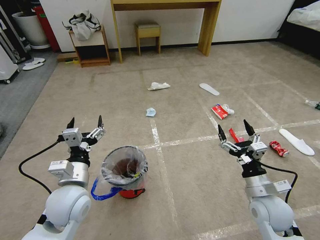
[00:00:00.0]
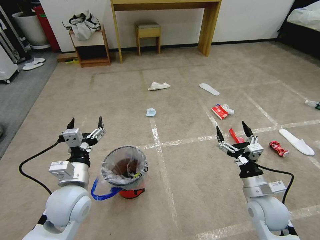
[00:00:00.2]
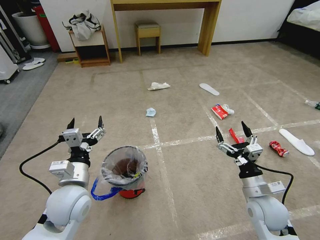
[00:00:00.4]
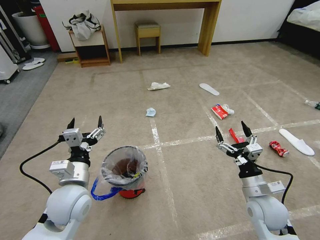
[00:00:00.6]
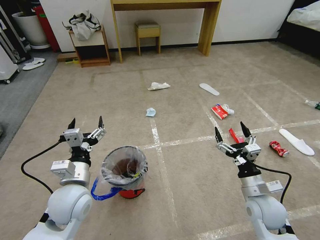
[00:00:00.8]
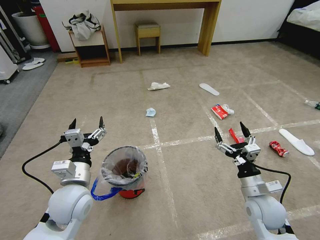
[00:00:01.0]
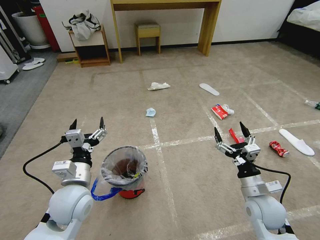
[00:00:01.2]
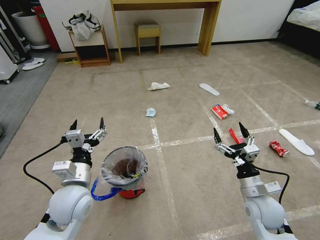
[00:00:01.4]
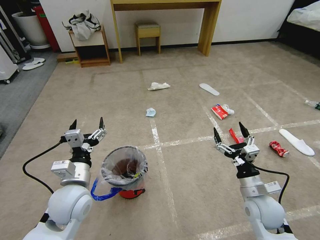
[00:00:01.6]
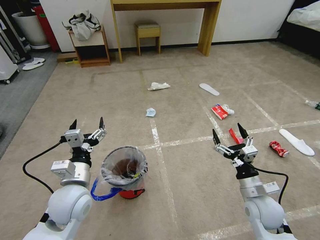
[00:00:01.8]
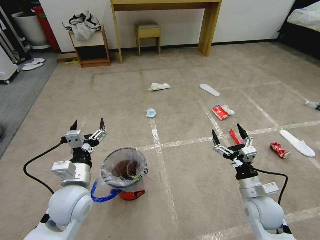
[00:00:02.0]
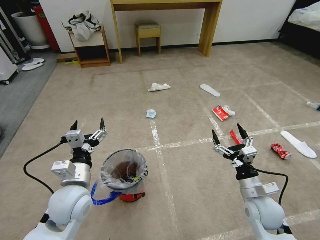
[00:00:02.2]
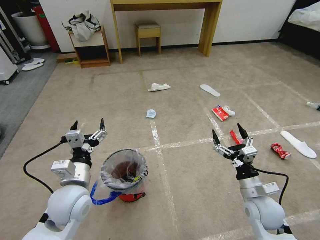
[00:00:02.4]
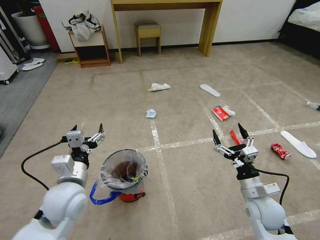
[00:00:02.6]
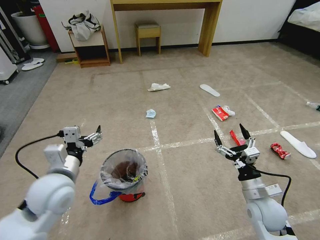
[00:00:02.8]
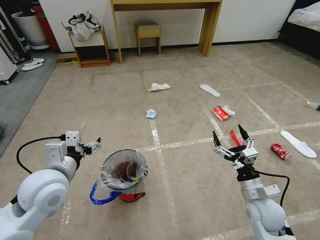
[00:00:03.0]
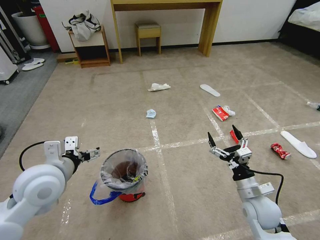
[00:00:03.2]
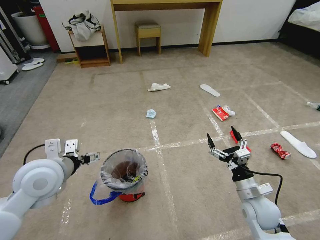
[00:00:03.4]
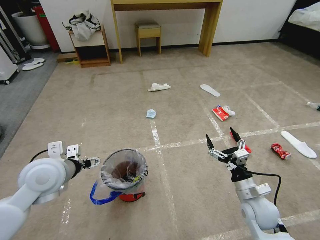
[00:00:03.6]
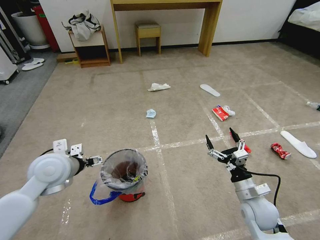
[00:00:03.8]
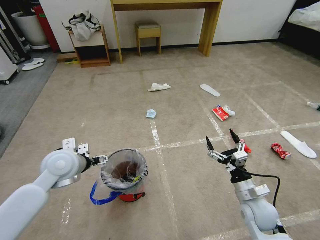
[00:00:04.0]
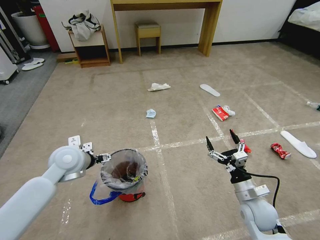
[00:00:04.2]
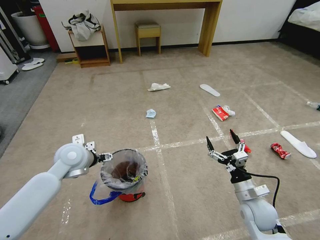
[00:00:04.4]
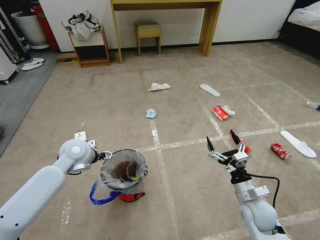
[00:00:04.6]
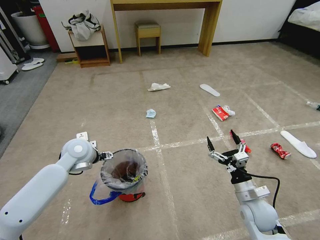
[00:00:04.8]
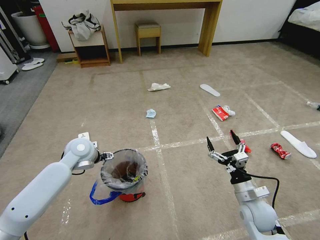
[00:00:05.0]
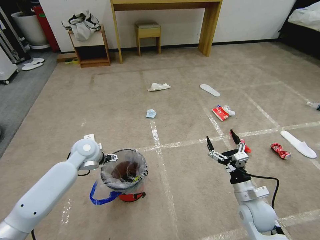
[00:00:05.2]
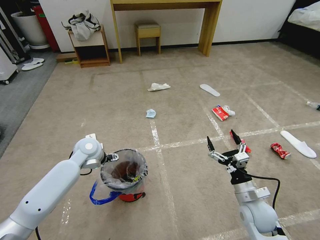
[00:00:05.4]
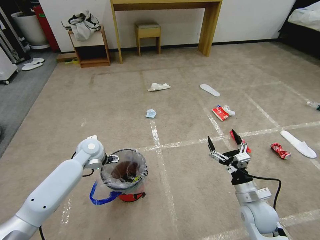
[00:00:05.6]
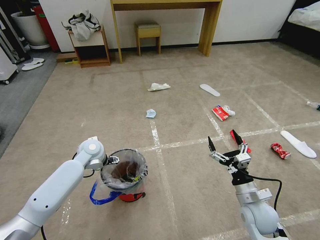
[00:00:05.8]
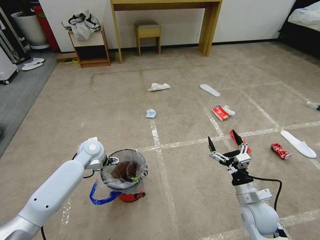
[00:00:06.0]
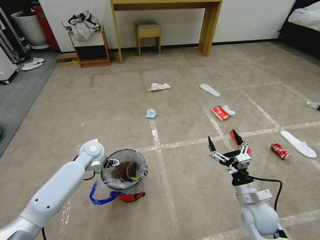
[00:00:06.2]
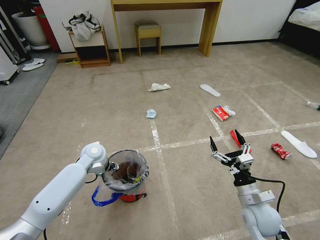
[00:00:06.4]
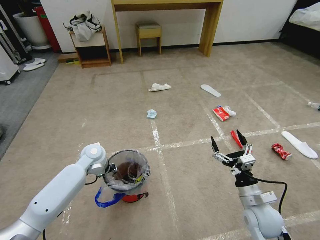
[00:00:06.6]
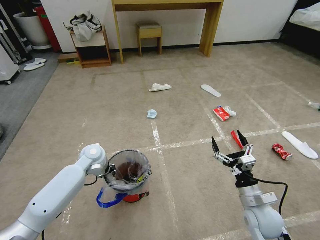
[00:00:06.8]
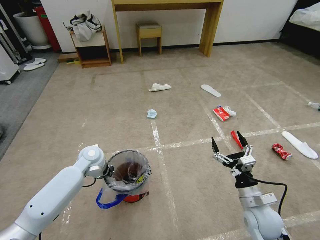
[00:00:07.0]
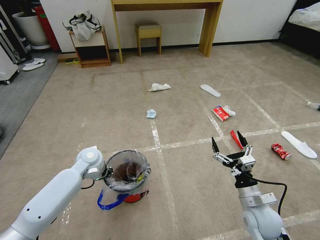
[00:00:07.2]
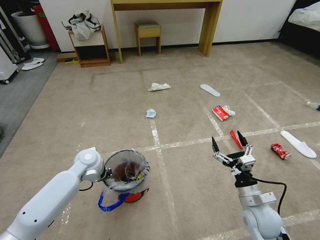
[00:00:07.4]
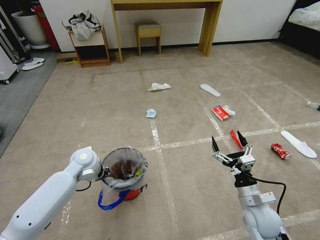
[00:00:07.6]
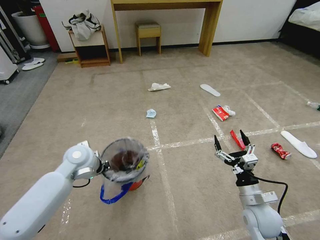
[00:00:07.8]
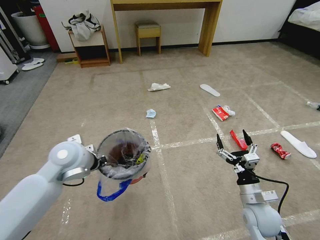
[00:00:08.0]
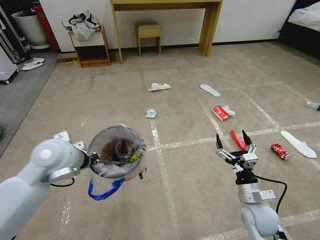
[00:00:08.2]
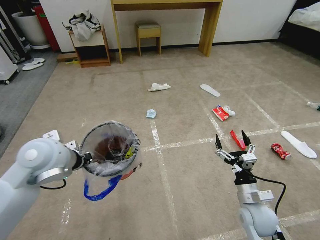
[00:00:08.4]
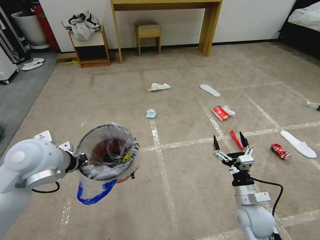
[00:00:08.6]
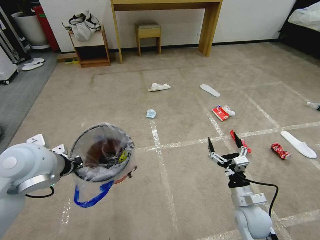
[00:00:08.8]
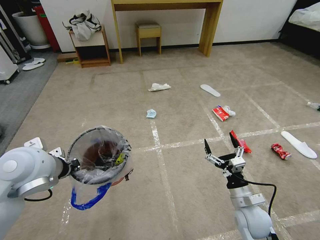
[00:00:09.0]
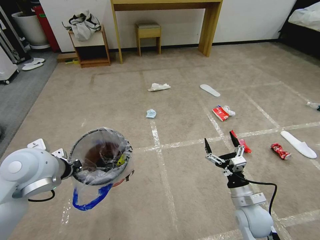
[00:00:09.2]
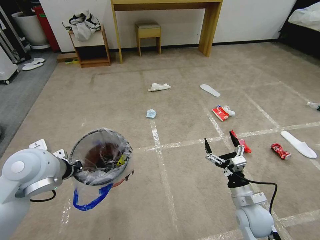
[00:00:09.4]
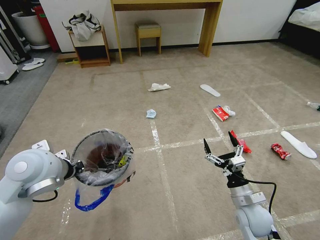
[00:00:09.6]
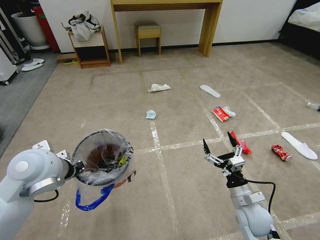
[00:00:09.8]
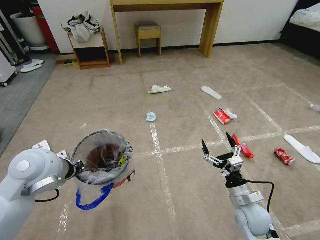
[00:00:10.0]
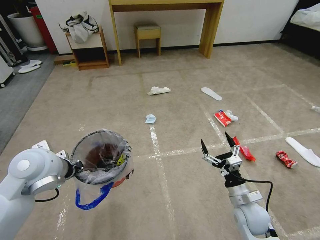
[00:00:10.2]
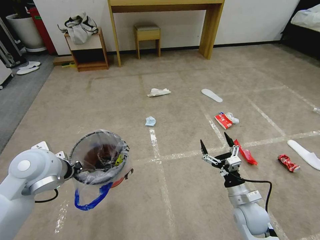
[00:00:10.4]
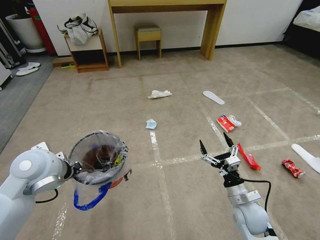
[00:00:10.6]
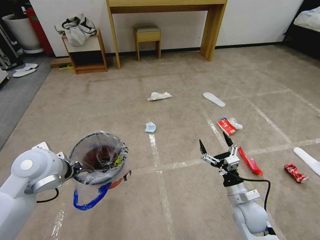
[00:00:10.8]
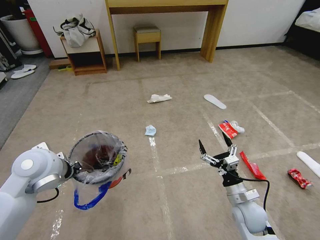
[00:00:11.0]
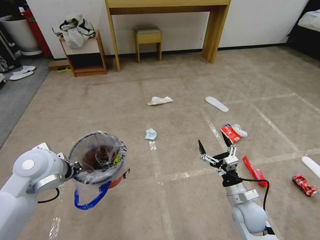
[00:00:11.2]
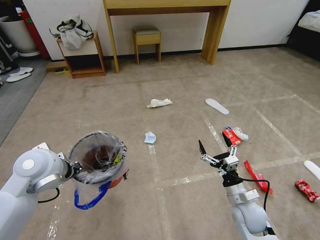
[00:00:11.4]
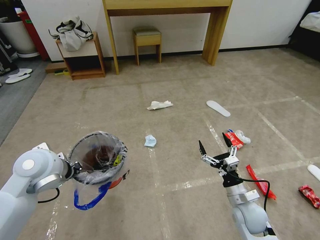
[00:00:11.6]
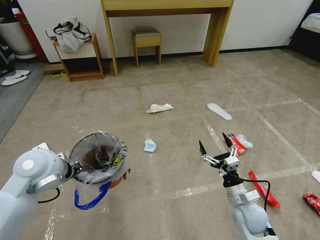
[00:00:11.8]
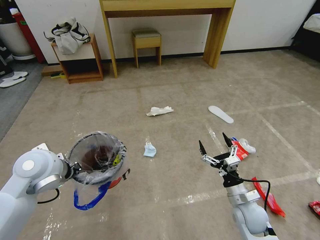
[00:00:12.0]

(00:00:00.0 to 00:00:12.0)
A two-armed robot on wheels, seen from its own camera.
Task of the whole recording: Pick up the trash bin and place the garbage on the floor into it.
00:00:01.6 - 00:00:03.0: The left gripper goes approximately 5 cm upward.
00:00:03.0 - 00:00:04.4: The left gripper is displaced forward by roughly 10 cm.
00:00:04.4 - 00:00:06.0: The left gripper moves forward and downward, some 10 cm.
00:00:06.0 - 00:00:07.6: The left gripper closes up.
00:00:07.6 - 00:00:09.0: The left gripper travels upward and backward by some 20 cm.

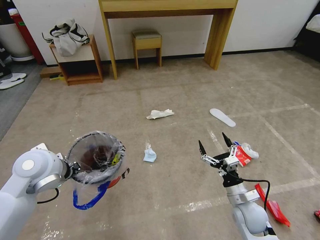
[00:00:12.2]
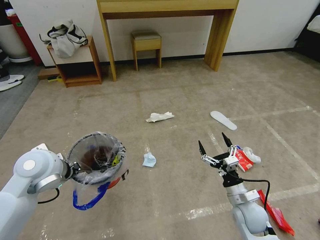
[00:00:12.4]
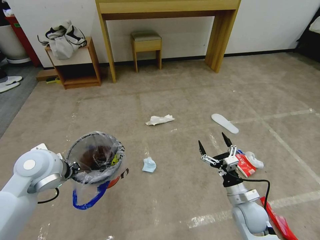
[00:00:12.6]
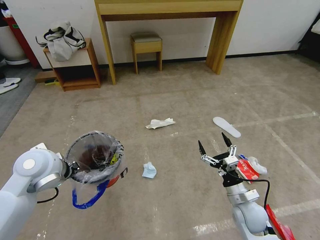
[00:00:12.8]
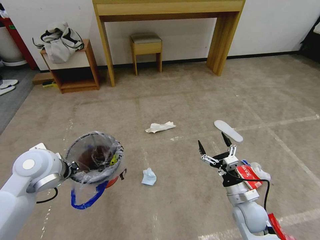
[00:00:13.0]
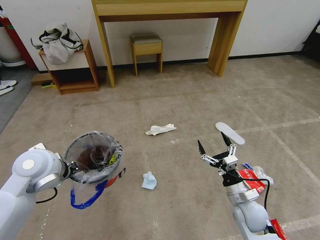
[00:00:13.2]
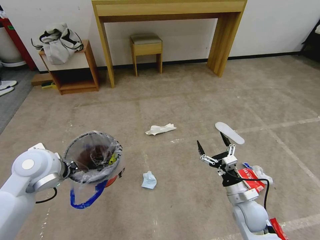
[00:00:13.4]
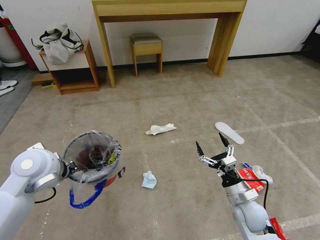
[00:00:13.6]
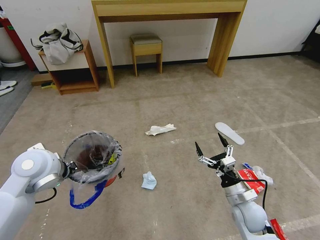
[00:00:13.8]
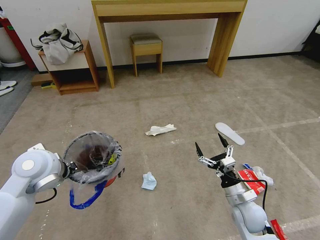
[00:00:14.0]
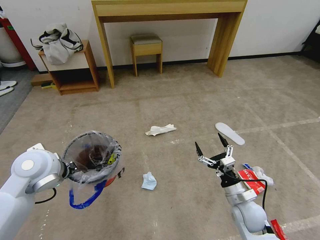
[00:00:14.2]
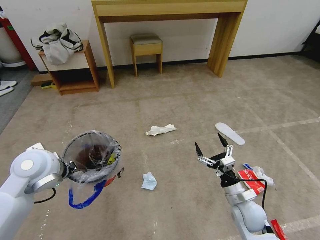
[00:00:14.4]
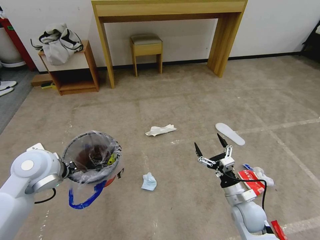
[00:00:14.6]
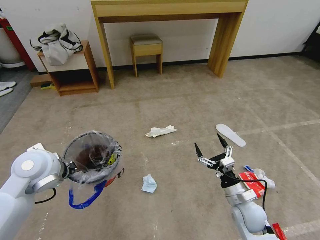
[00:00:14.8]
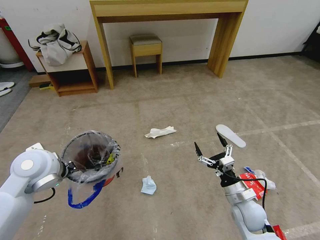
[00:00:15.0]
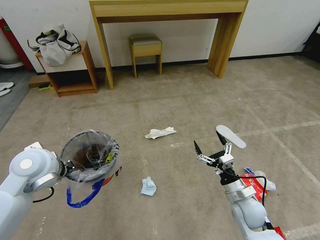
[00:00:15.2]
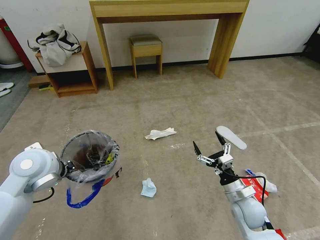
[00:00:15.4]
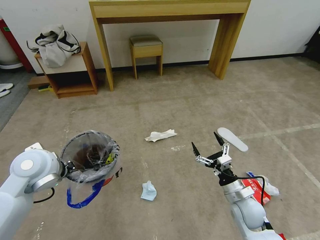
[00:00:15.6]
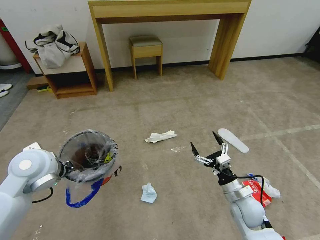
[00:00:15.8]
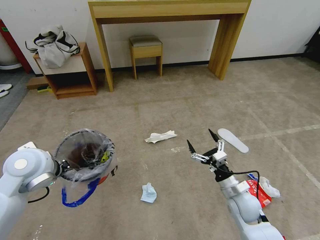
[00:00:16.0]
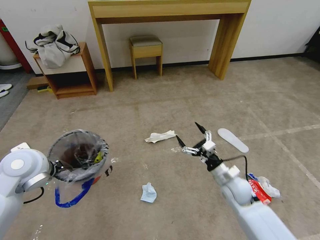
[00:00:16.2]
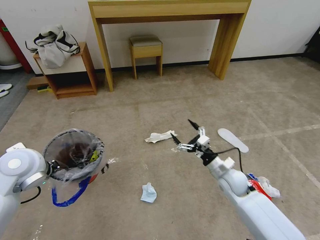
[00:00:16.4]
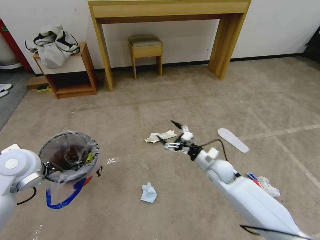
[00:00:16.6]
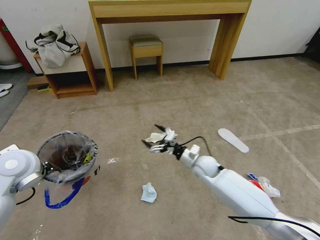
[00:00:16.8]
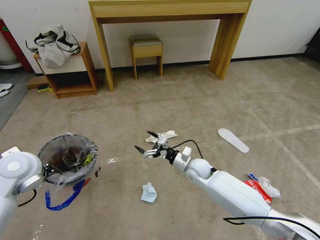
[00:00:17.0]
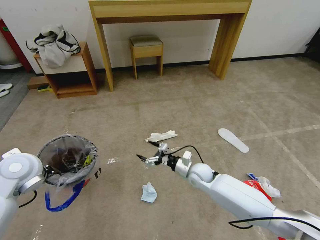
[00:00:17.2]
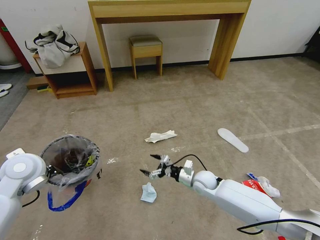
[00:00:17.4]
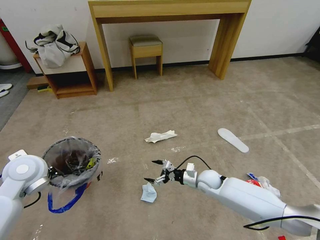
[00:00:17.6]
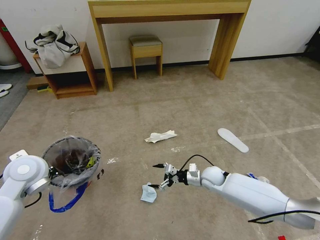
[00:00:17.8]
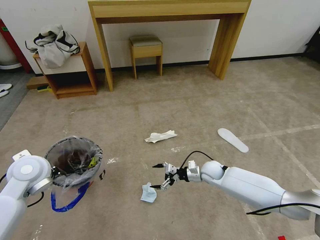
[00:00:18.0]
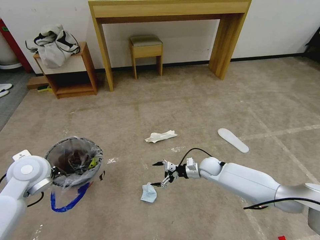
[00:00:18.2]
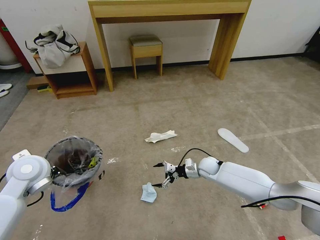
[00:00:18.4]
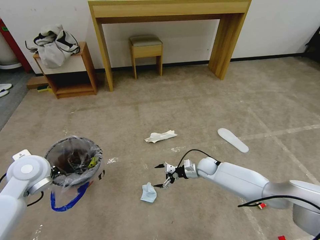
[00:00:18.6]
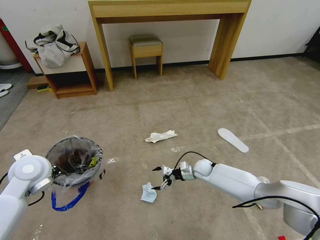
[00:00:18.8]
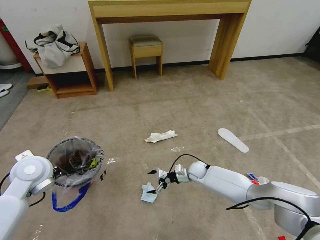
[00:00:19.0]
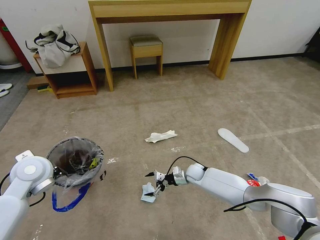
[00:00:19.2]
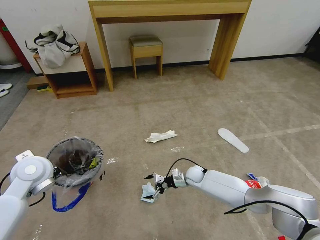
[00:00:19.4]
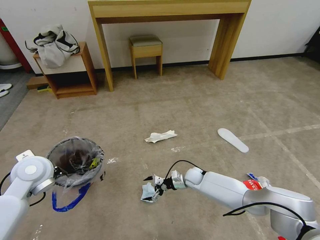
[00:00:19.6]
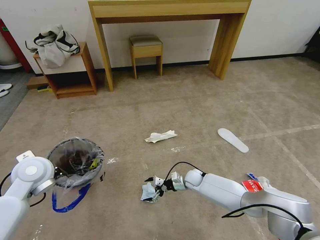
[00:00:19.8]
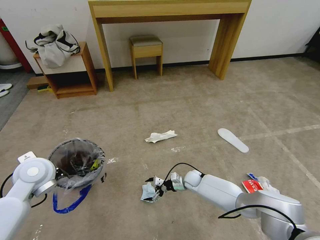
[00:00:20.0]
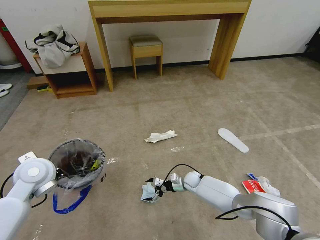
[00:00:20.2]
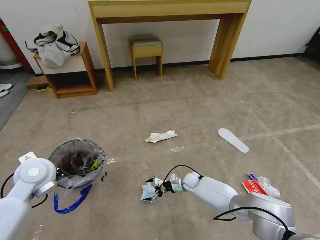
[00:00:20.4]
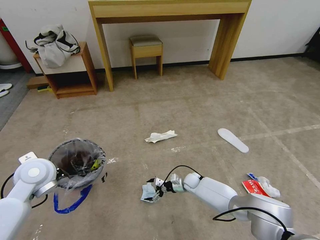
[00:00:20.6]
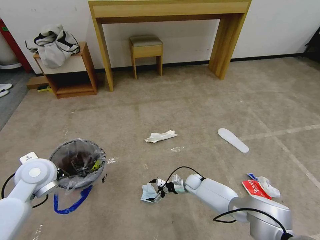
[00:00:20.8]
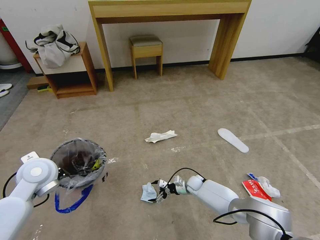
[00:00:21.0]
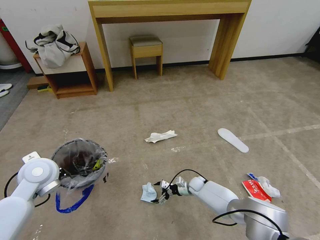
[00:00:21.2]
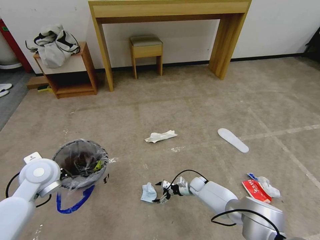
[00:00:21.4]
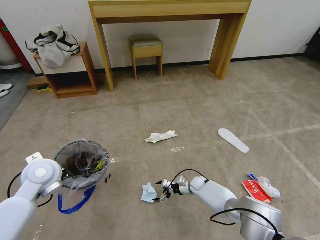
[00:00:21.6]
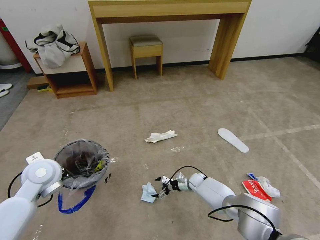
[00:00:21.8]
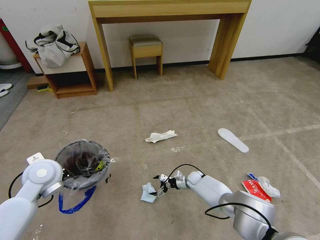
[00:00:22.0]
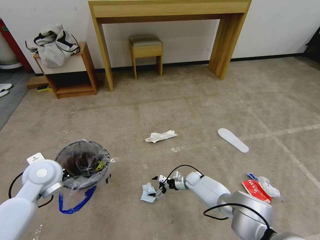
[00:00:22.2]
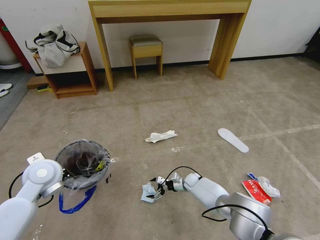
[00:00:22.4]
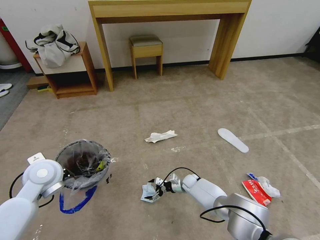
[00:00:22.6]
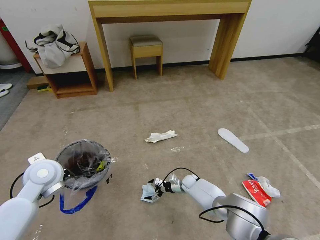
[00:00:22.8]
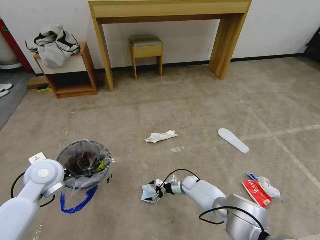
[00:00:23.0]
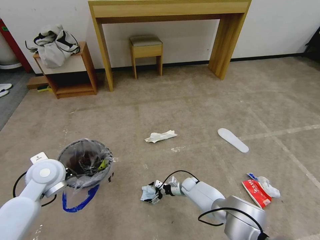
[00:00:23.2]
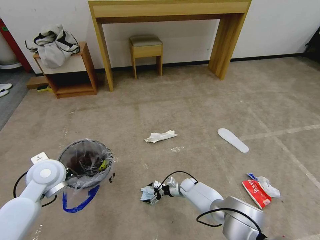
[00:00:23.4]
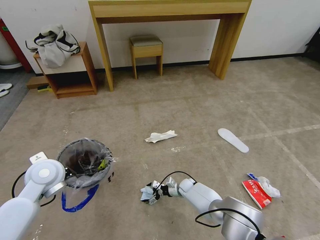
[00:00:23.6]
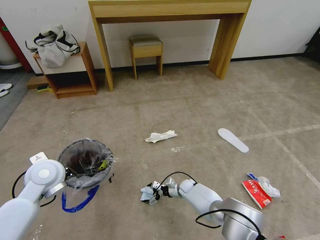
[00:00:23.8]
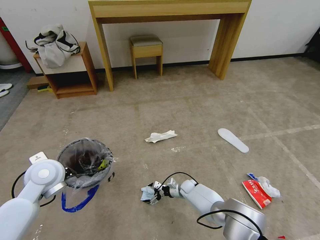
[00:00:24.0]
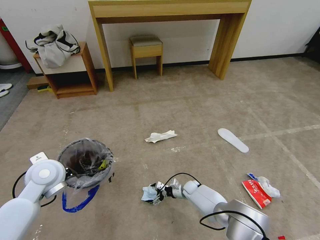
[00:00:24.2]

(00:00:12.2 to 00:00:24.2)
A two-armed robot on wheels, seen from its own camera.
Task of the whole recording: Pick up the trash bin and place the garbage on the floor into it.
00:00:13.8 - 00:00:15.2: The two grippers keep their place.
00:00:15.2 - 00:00:16.6: The right gripper goes roughly 15 cm forward and to the left, while the left gripper goes approximately 5 cm to the left.
00:00:16.6 - 00:00:18.2: The right gripper goes roughly 10 cm downward and forward.
00:00:18.2 - 00:00:19.8: The right gripper travels downward and to the left by about 10 cm.
00:00:19.8 - 00:00:21.2: The right gripper goes about 5 cm downward.
00:00:21.2 - 00:00:24.2: The grippers stay close to where they were, moving slightly.
